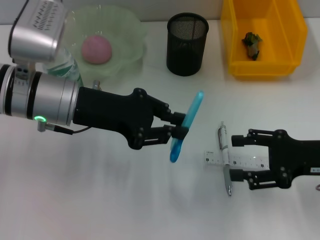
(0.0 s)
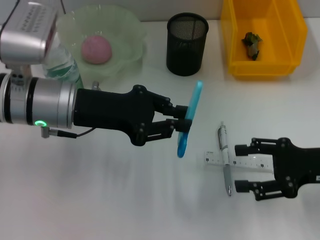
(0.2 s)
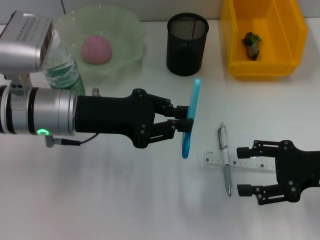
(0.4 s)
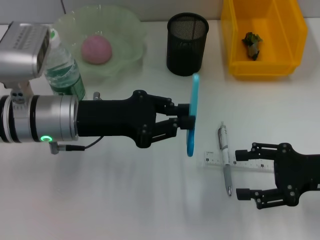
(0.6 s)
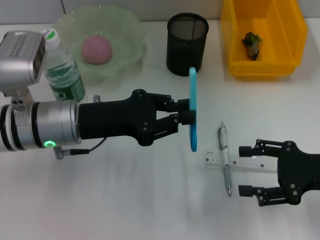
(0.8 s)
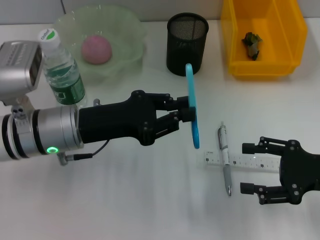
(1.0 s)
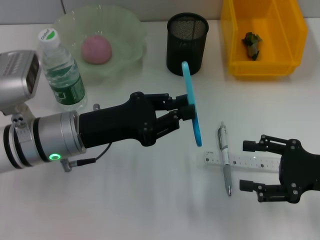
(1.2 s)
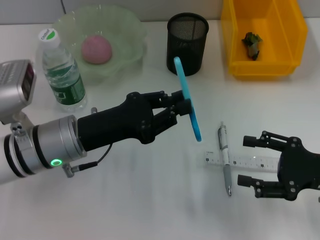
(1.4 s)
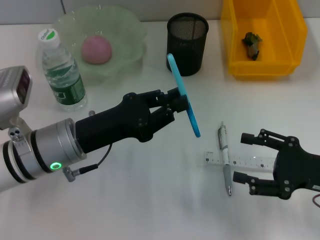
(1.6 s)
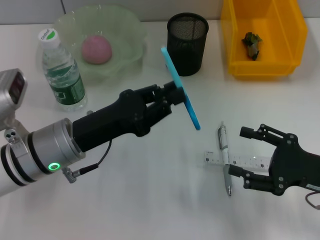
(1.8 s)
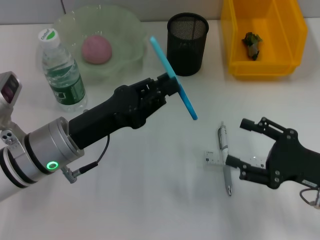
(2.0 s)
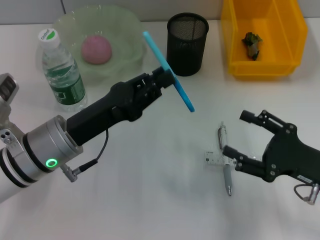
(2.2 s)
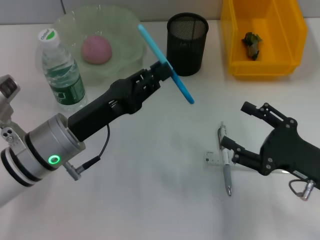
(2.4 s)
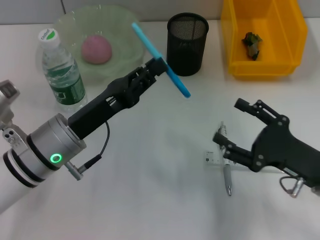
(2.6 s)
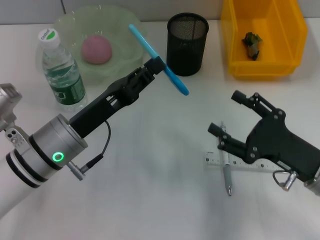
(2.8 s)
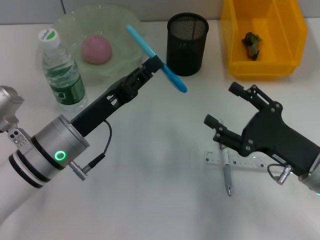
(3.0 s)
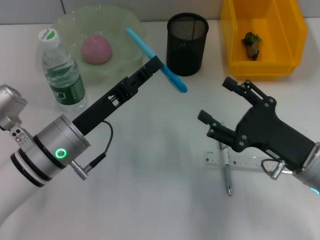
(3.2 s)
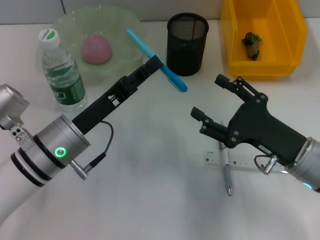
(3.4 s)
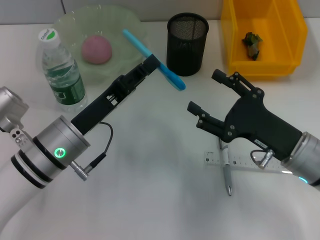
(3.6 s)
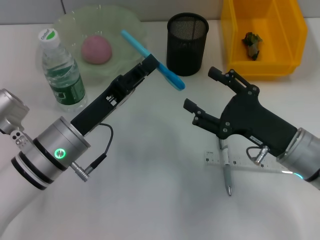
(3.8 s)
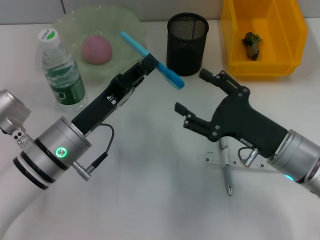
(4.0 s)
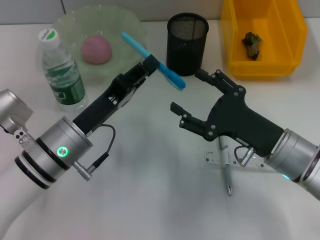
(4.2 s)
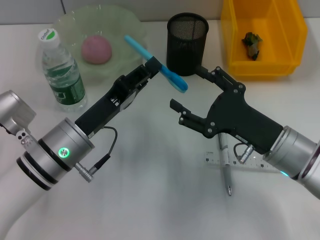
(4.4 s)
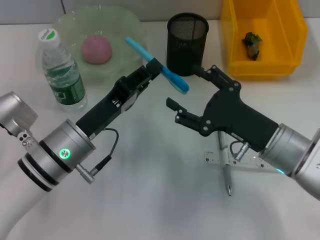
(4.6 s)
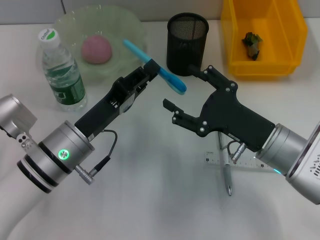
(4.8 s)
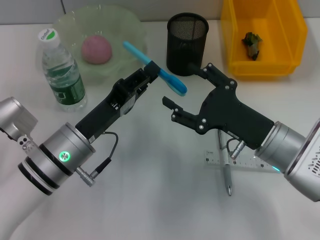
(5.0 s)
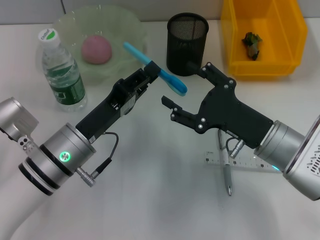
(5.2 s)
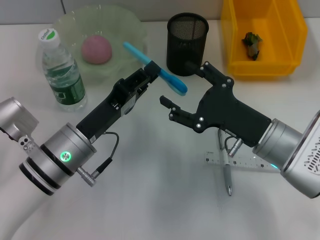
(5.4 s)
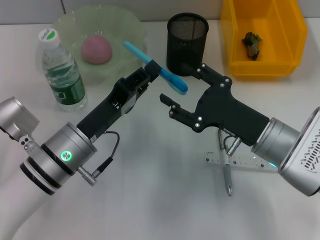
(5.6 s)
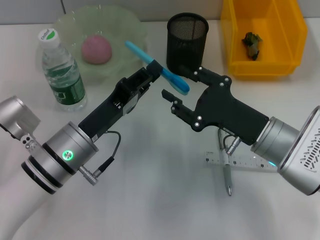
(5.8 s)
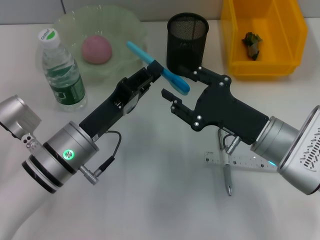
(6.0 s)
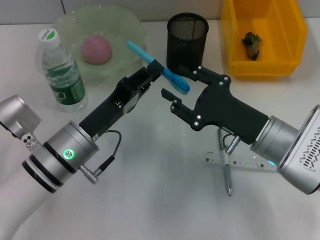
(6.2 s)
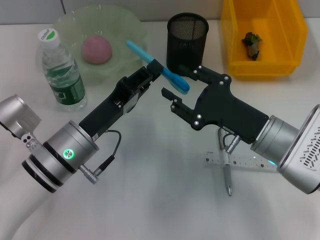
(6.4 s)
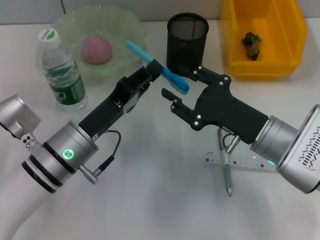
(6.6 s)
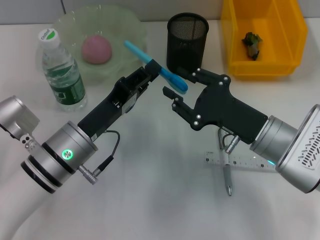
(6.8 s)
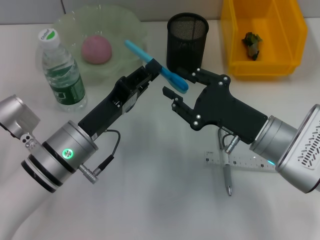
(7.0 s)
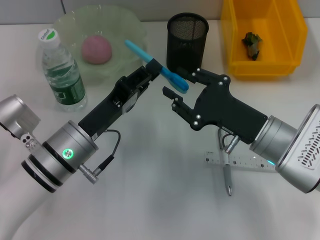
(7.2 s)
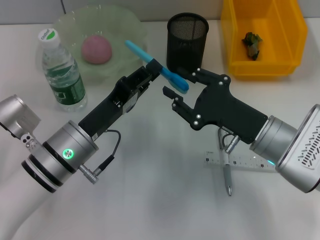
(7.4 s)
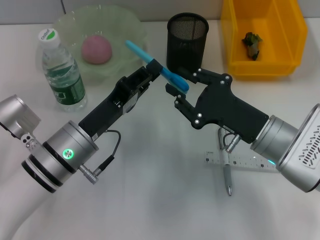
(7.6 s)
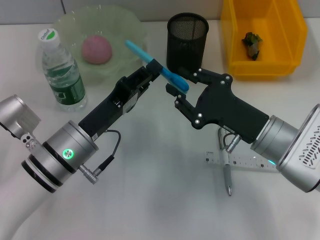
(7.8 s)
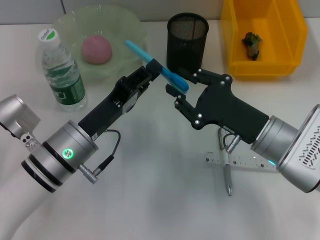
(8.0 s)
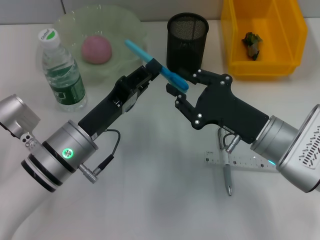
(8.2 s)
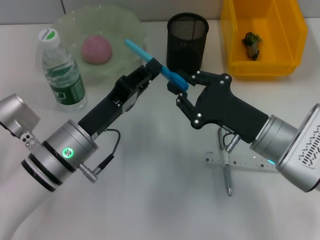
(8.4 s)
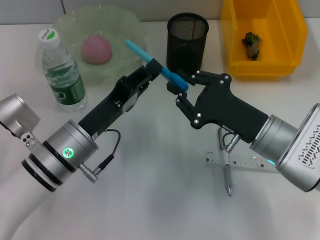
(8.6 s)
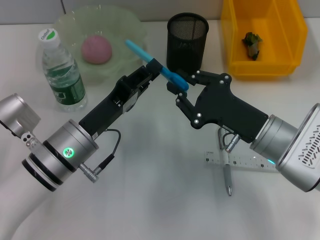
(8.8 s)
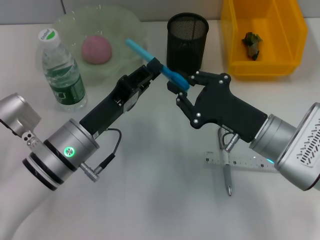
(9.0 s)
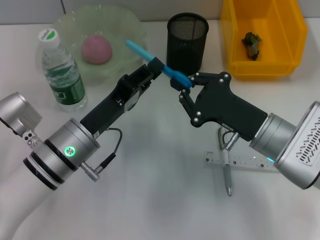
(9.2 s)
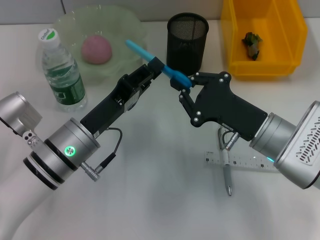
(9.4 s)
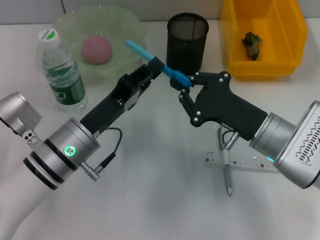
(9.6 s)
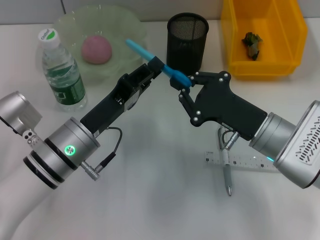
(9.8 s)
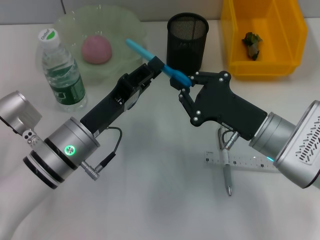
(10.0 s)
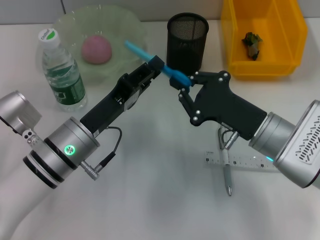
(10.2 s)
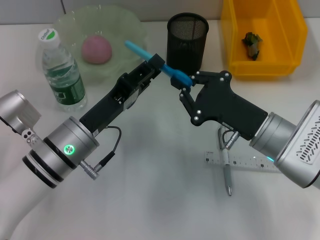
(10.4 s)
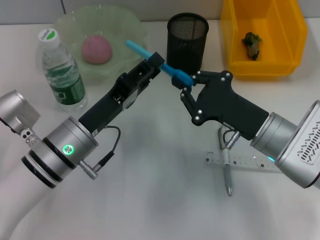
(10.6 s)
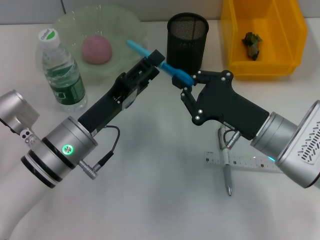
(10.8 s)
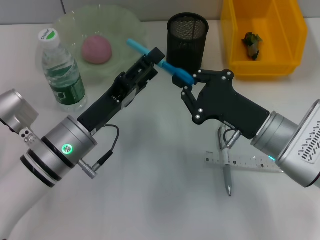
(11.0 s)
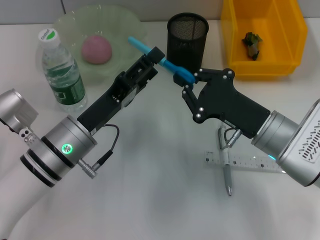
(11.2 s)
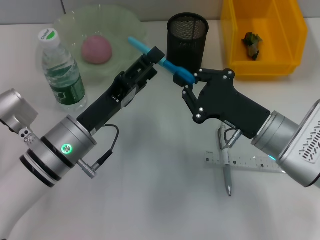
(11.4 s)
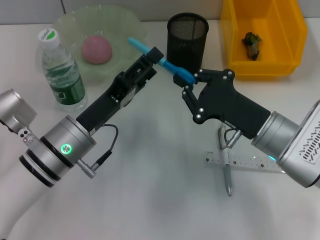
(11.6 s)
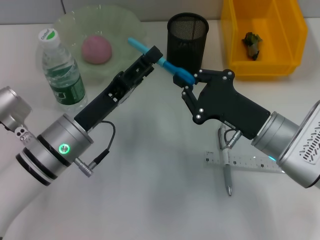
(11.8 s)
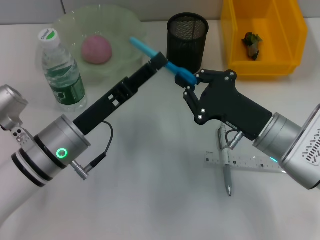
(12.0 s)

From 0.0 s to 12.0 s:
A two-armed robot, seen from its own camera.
Step, from 0.0 s to 11.8 s: Pass the blue scissors from the left hand to the right hand.
From 0.0 s to 1.6 s: The left gripper heads downward and backward, covering about 10 cm.
From 1.6 s to 3.0 s: The right gripper moves to the left, some 5 cm.
From 3.0 s to 4.4 s: The right gripper changes place by approximately 5 cm.
From 4.4 s to 6.0 s: There are only small adjustments of the grippers.
From 6.0 s to 10.4 s: The two grippers keep their place.
From 10.4 s to 12.0 s: The left gripper opens up.

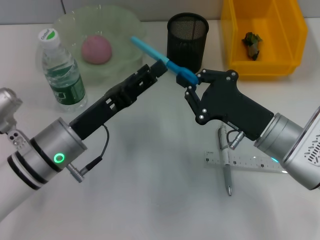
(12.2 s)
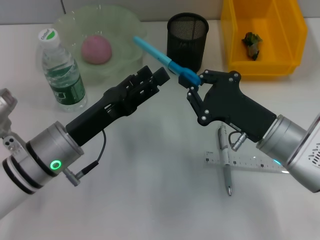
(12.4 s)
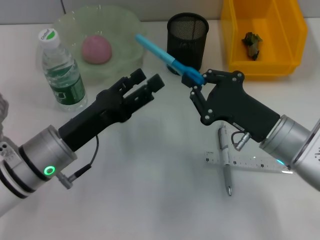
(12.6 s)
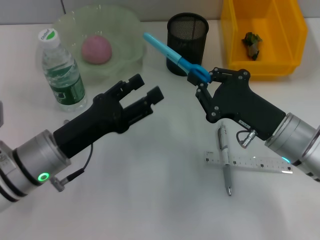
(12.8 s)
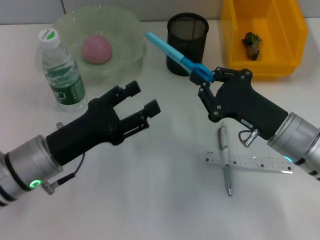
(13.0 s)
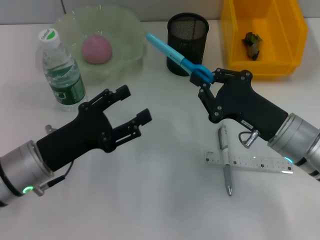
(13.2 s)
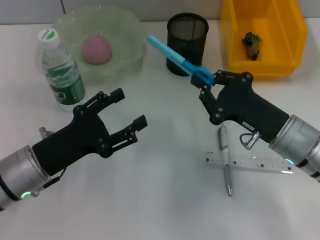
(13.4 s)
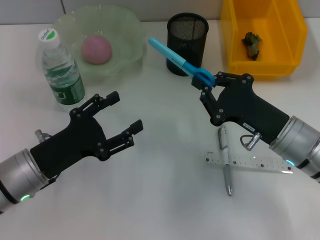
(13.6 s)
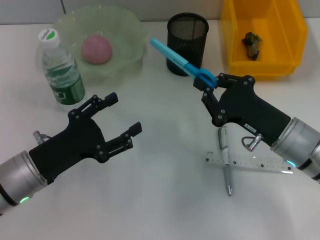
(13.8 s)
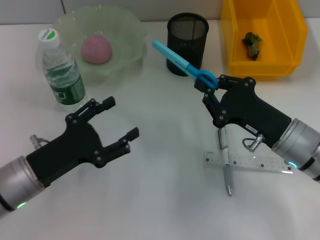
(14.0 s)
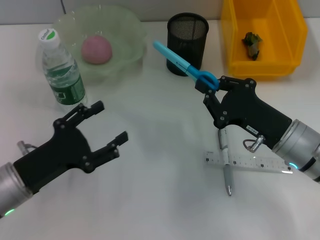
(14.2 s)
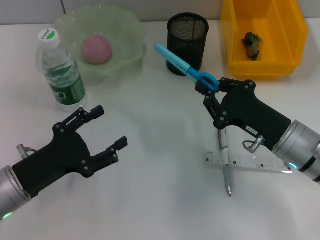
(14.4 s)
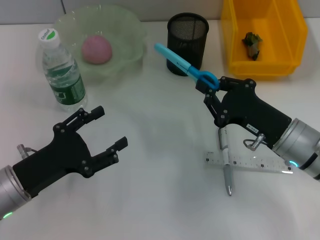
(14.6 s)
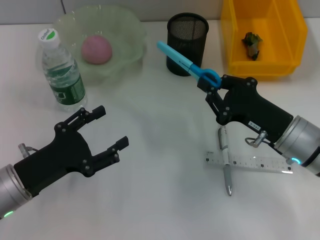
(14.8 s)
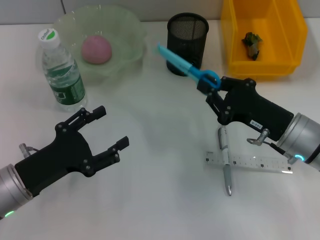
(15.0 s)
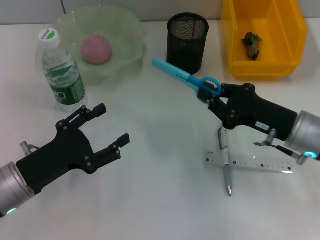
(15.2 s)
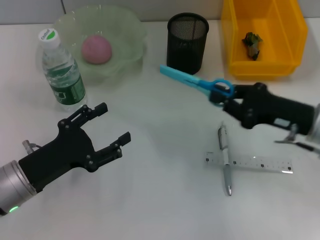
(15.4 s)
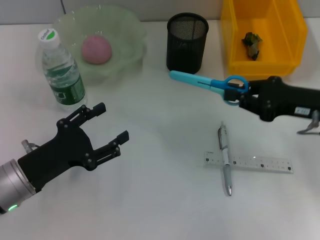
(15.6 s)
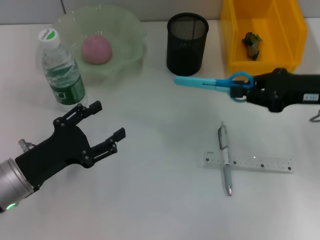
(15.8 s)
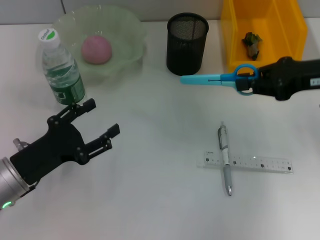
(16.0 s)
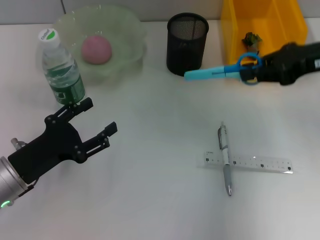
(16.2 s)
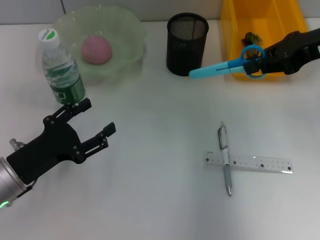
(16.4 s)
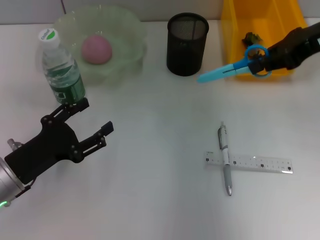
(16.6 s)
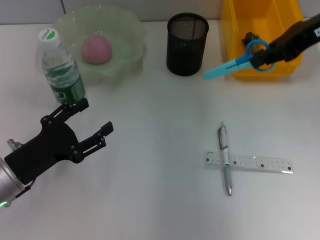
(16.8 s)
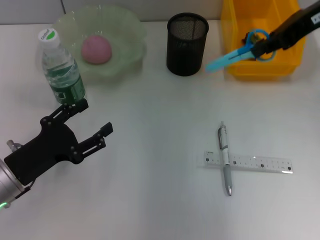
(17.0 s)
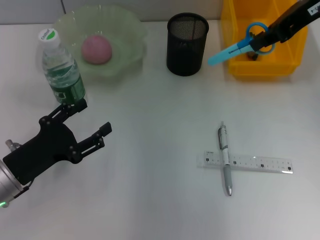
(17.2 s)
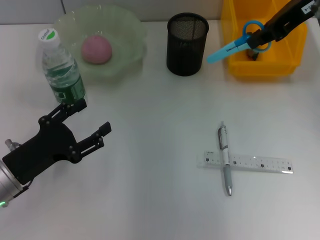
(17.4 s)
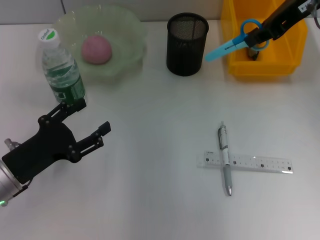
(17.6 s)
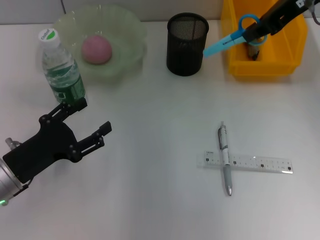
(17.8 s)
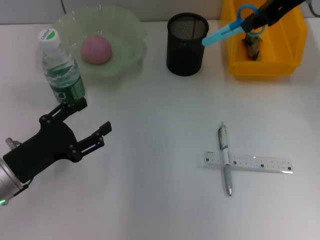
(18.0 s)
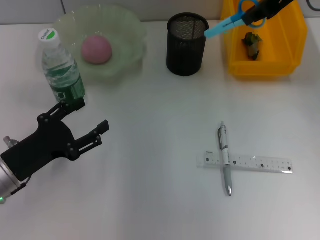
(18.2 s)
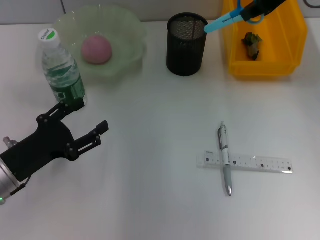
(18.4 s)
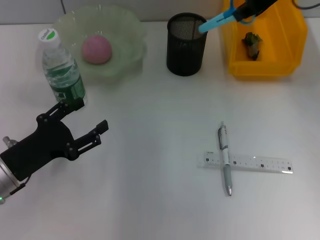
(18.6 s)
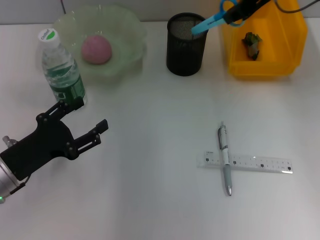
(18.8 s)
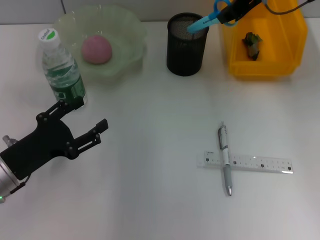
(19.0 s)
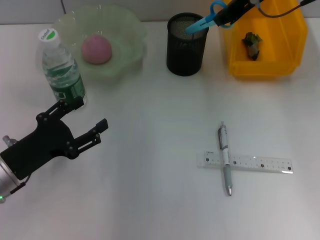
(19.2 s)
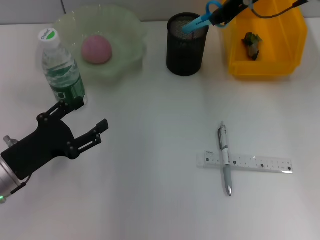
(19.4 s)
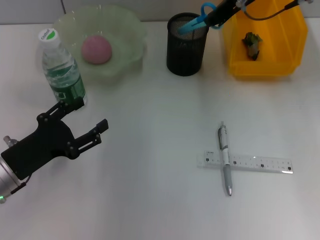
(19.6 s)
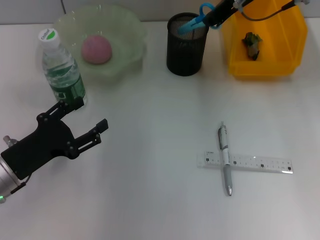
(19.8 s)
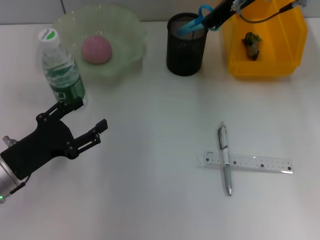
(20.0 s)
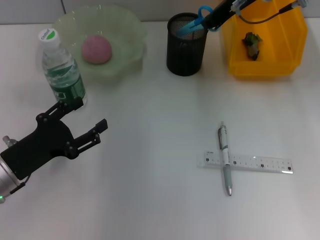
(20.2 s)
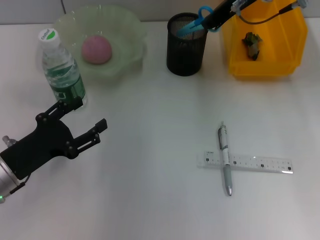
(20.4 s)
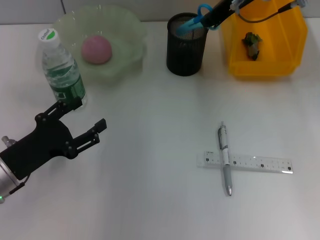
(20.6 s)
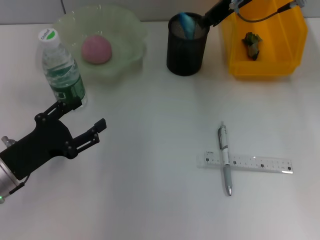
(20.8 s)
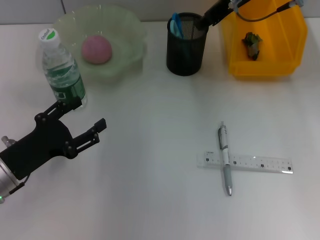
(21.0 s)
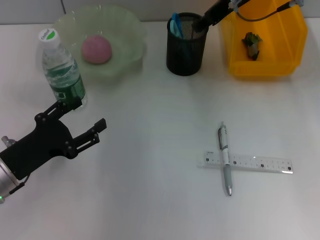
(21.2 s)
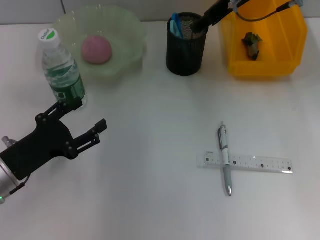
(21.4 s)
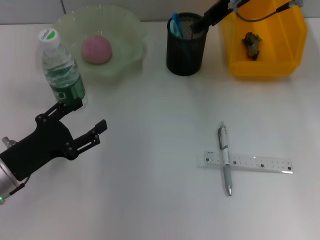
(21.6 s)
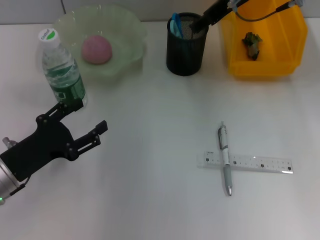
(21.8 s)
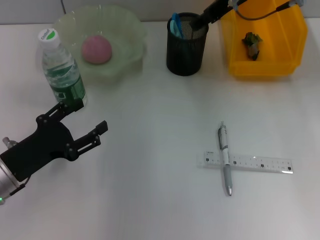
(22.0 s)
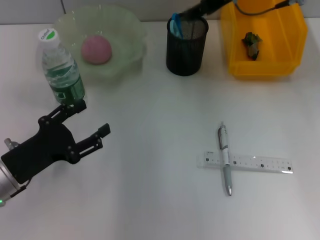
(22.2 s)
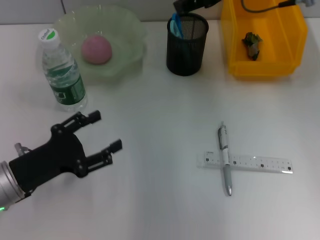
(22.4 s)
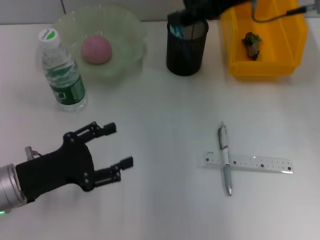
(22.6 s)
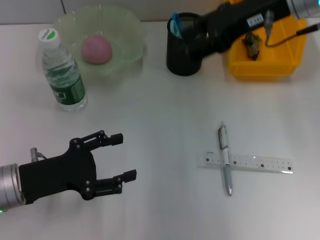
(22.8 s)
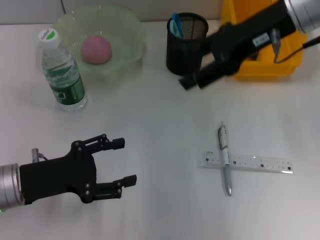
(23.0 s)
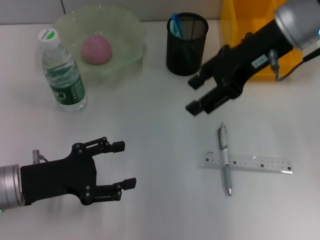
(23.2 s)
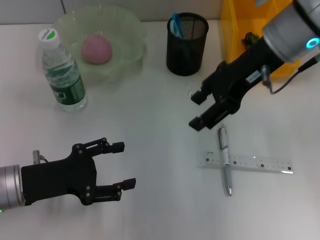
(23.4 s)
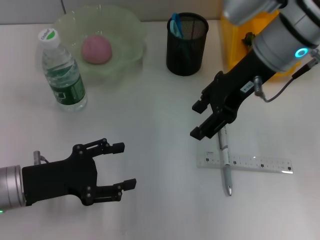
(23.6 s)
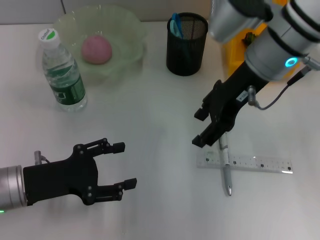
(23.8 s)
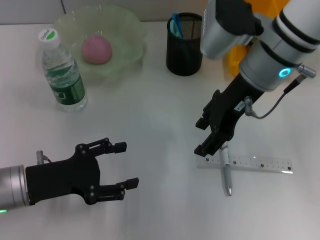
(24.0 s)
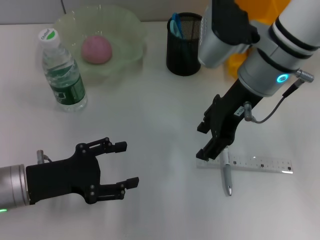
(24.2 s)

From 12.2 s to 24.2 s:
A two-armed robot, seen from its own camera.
Step, from 12.2 s to 21.6 s: Place the blue scissors into the pen holder with the right hand.
From 12.2 s to 13.8 s: The left gripper moves to the left, about 5 cm.
From 15.2 s to 16.6 s: The right gripper is displaced upward and forward by approximately 20 cm.
From 16.6 s to 18.2 s: The right gripper ends up roughly 10 cm from where it was.
From 18.2 s to 19.8 s: The right gripper heads to the left and downward, covering some 10 cm.
From 19.8 s to 21.2 s: The right gripper opens.
From 21.2 s to 22.6 s: The right gripper goes roughly 5 cm backward.
From 22.6 s to 24.2 s: The right gripper shifts some 10 cm downward, to the left and backward.
